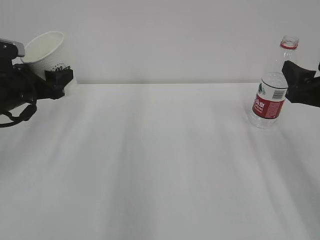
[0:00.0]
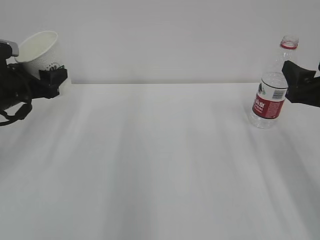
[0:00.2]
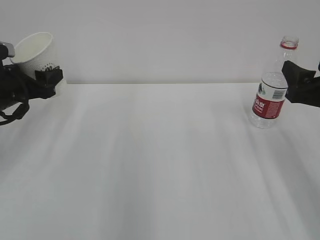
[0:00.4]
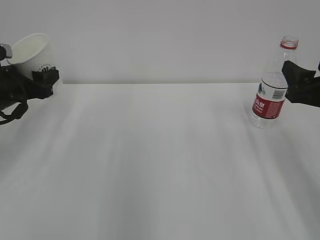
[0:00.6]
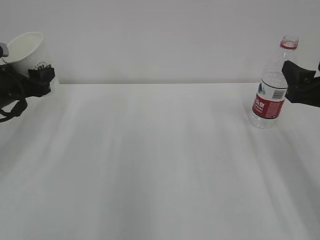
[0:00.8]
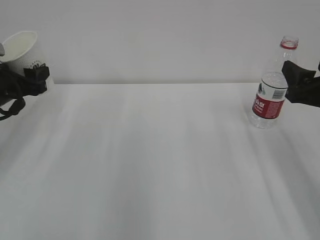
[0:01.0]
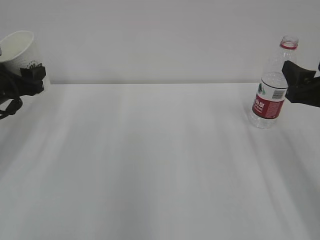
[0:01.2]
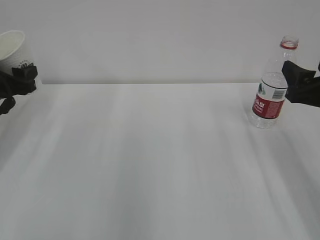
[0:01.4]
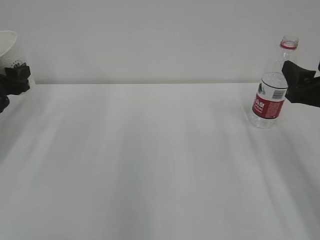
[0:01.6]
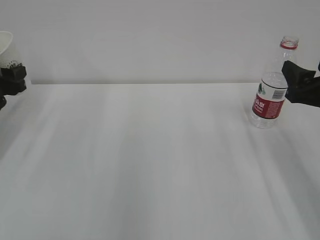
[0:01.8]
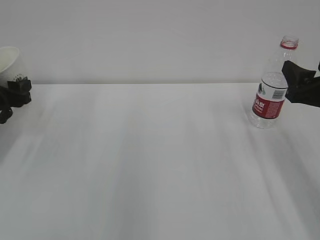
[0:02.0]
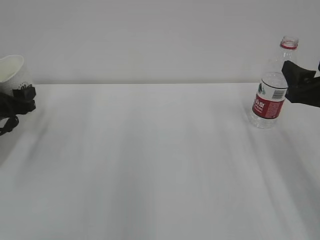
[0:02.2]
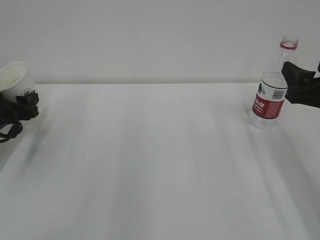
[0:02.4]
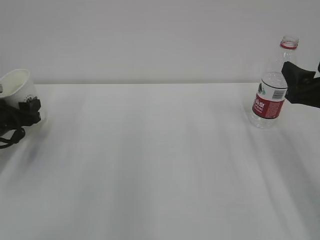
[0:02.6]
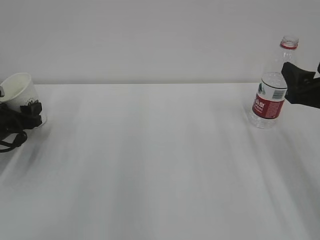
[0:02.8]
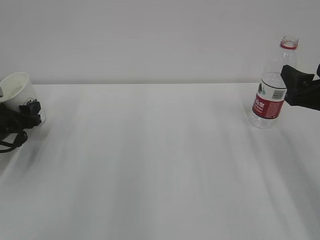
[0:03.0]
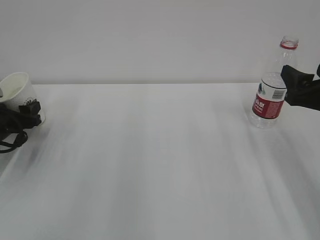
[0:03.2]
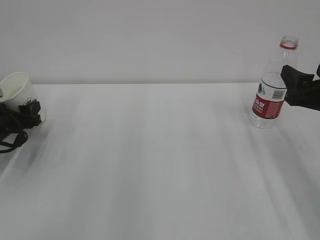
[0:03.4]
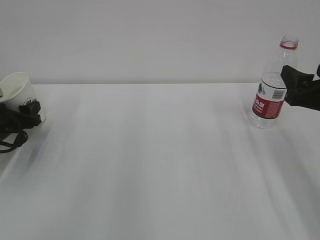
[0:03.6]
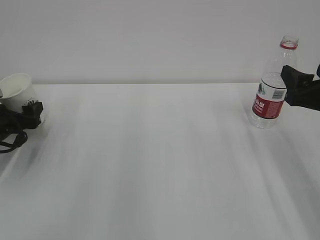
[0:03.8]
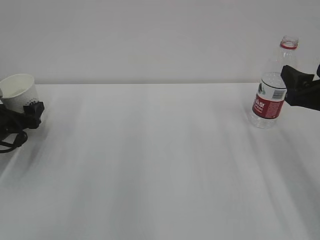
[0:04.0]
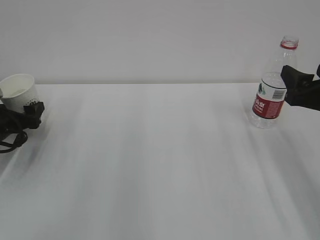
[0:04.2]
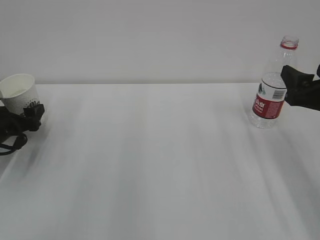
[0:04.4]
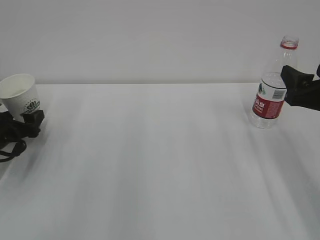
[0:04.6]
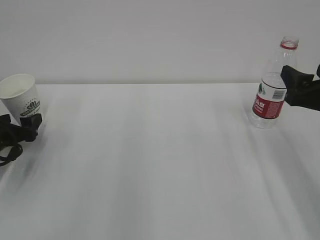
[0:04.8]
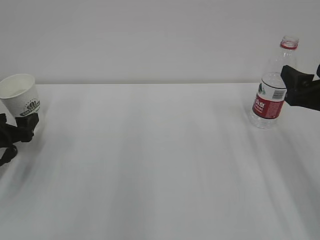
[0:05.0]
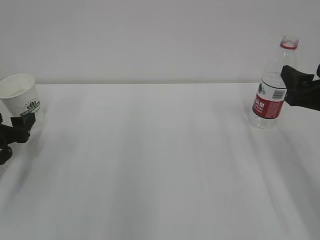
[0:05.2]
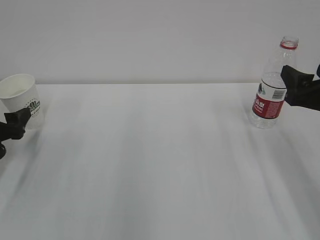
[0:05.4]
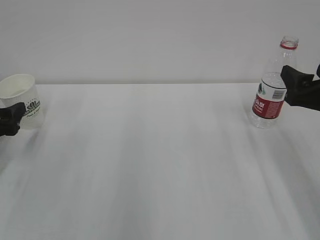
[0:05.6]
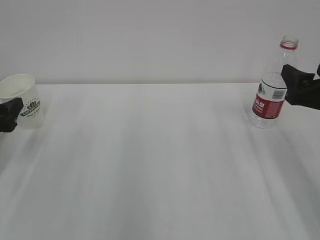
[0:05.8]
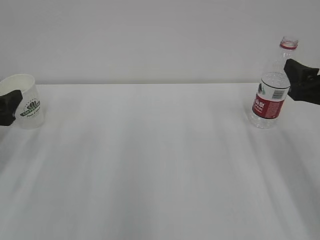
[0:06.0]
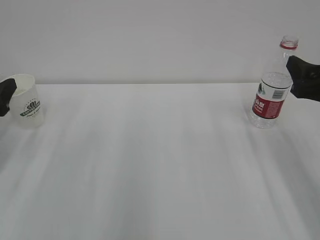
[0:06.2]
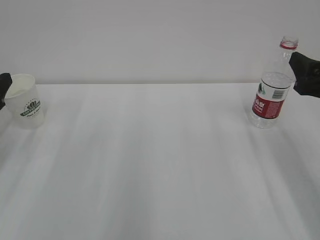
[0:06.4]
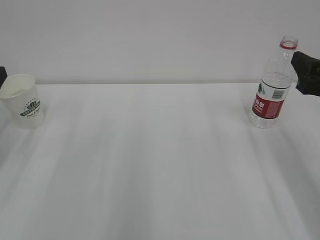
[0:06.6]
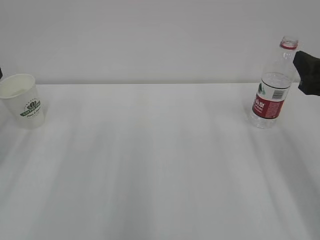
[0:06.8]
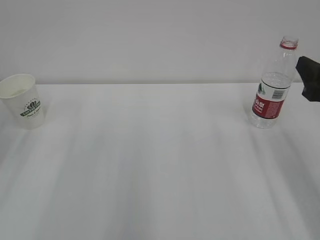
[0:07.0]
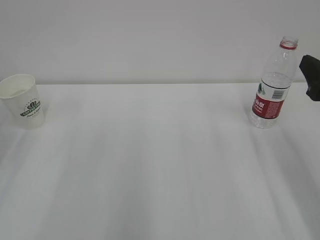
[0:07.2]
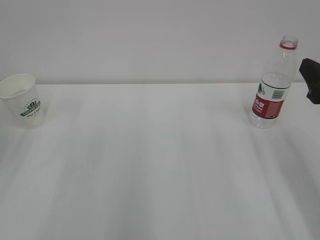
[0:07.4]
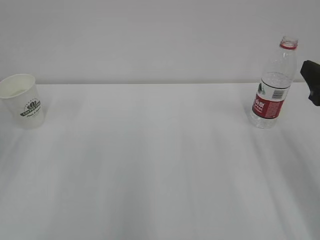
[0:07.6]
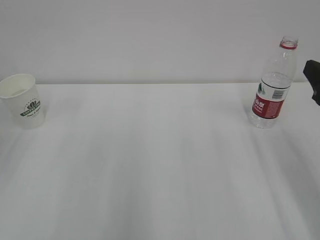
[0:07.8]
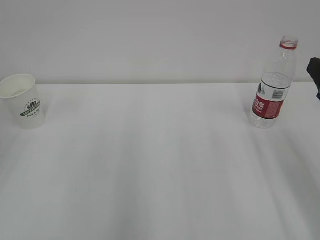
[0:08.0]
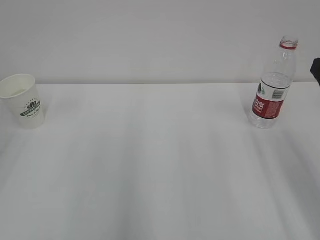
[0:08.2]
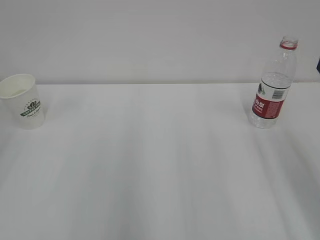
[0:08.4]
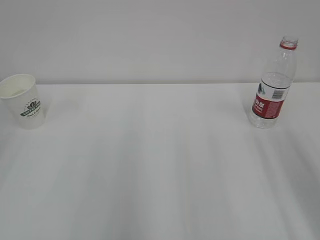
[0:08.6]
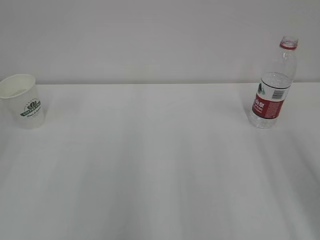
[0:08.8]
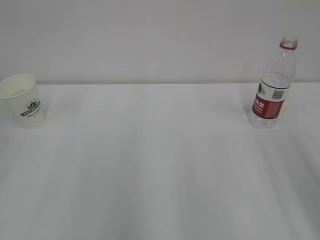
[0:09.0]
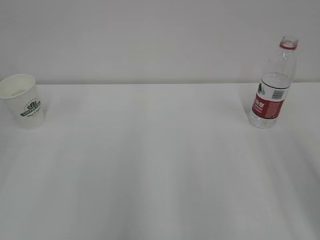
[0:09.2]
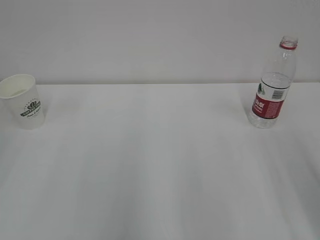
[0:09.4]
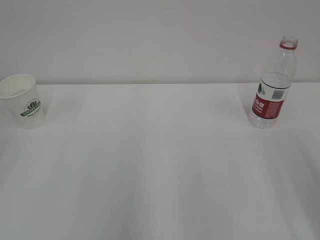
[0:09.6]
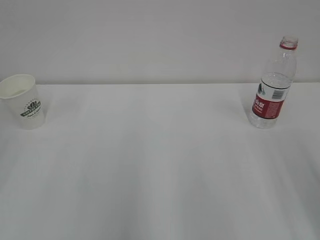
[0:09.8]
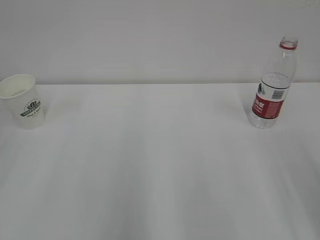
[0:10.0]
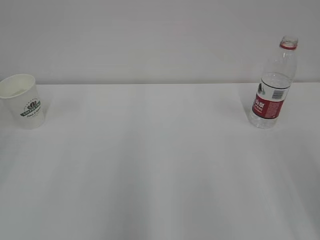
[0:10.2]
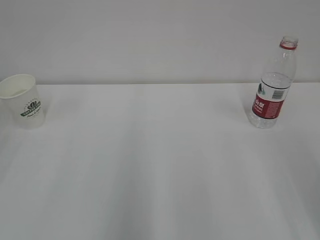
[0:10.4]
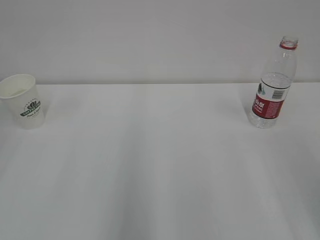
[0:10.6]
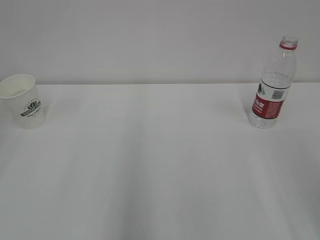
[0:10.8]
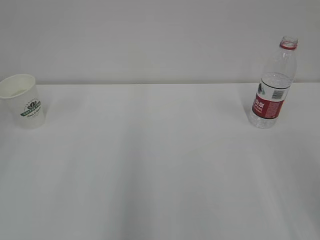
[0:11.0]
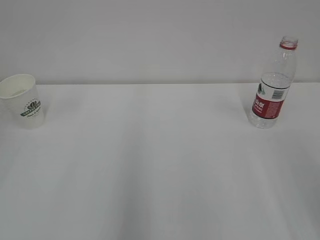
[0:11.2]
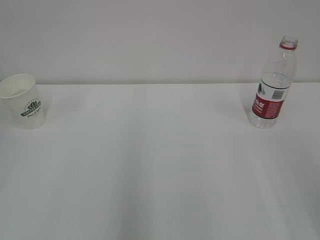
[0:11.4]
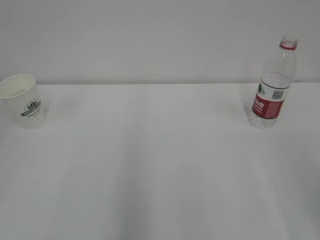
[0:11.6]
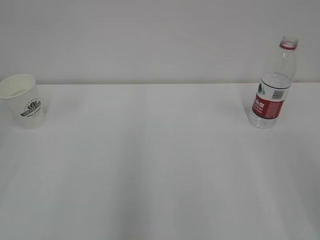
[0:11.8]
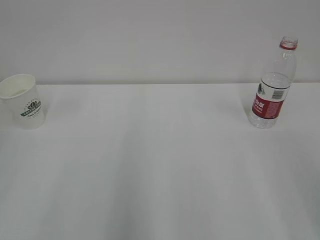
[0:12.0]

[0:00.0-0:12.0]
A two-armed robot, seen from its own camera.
0.0 to 1.6 s: The left gripper travels to the left by about 5 cm.
1.6 to 3.0 s: The left gripper moves downward, approximately 10 cm.
3.0 to 4.4 s: The left gripper opens.
4.4 to 6.0 s: The left gripper goes some 10 cm upward and backward.
6.0 to 7.6 s: The left gripper shifts about 10 cm upward and backward.
7.6 to 9.0 s: The right gripper goes approximately 5 cm backward.

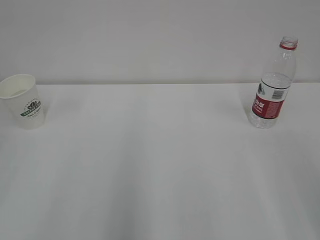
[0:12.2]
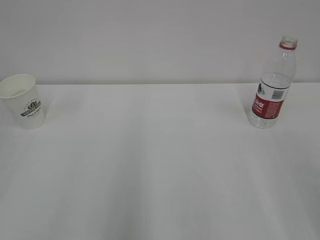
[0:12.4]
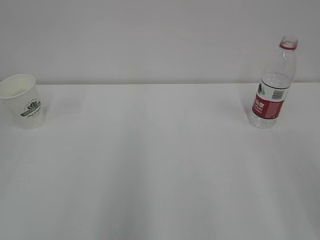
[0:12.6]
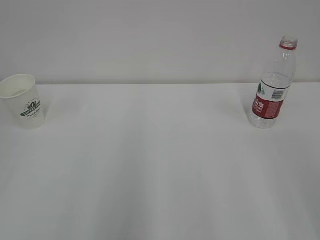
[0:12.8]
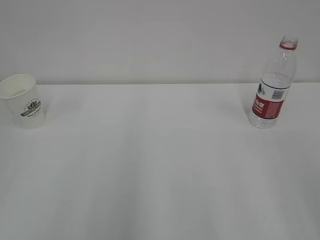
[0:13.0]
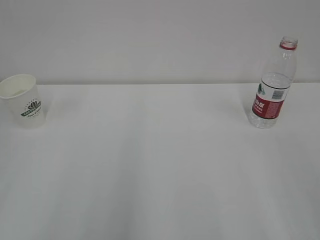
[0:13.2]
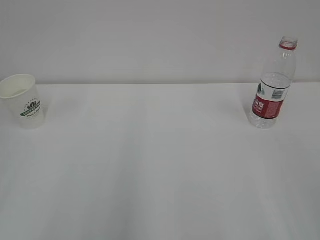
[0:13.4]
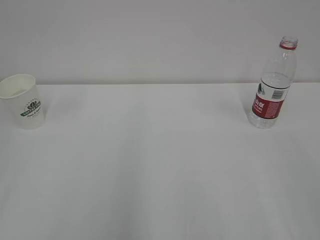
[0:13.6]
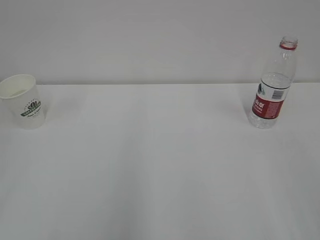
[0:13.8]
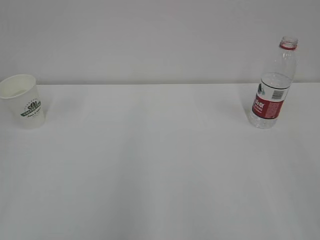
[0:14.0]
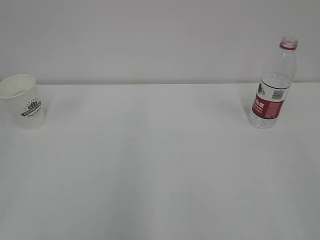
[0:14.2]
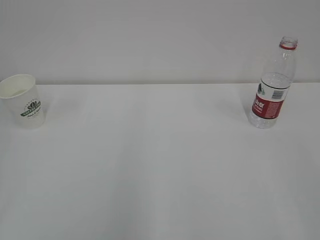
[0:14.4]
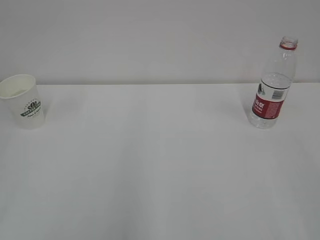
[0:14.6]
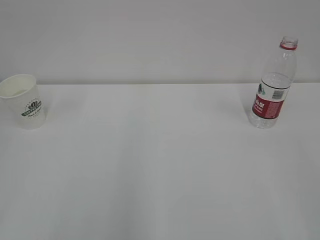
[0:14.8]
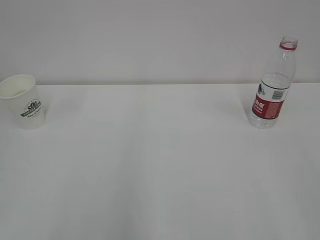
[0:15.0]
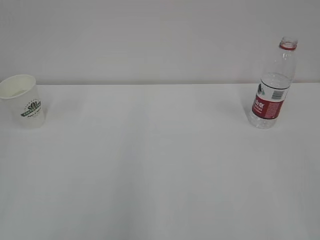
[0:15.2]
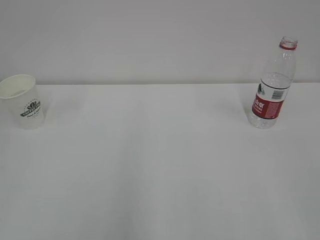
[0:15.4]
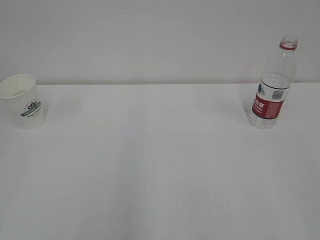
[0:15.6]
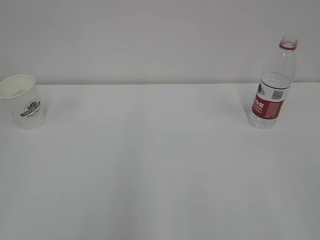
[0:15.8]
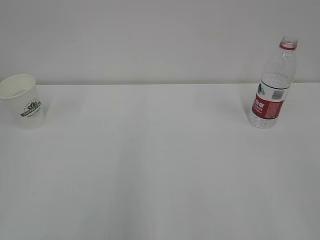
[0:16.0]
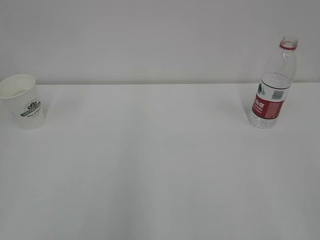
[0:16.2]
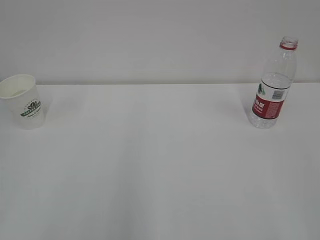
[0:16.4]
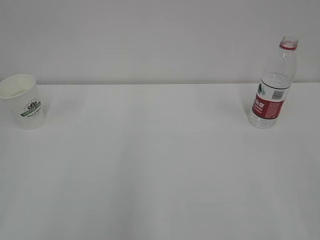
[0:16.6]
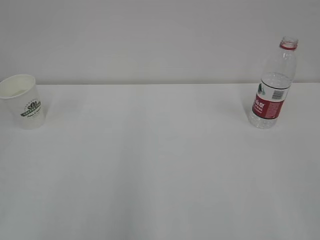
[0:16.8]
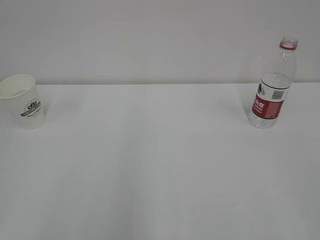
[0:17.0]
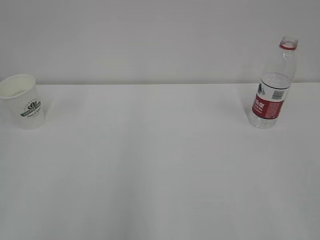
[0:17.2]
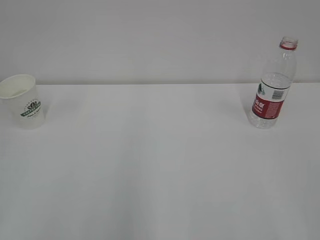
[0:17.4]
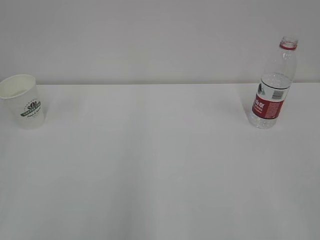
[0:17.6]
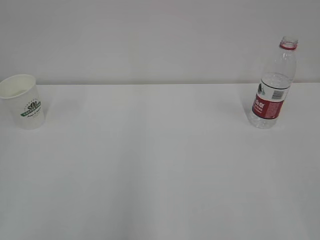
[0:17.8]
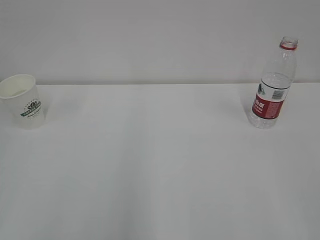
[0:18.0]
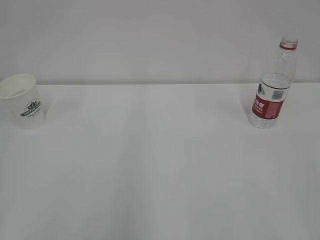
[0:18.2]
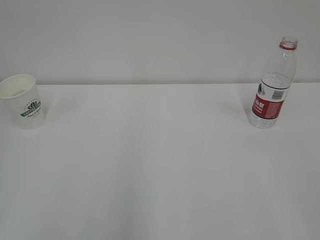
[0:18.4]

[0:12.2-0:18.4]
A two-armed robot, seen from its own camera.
16.8 to 18.4 s: Both grippers stay put.

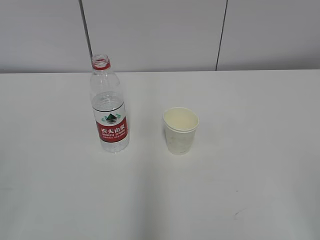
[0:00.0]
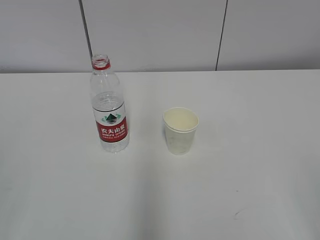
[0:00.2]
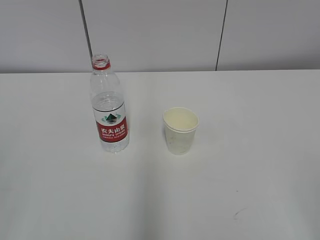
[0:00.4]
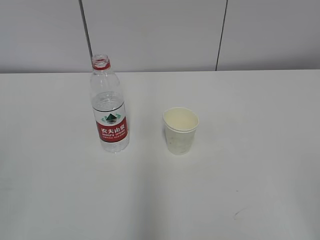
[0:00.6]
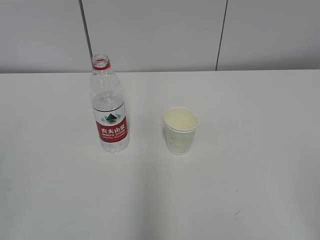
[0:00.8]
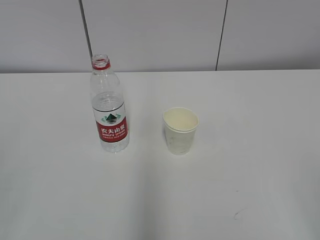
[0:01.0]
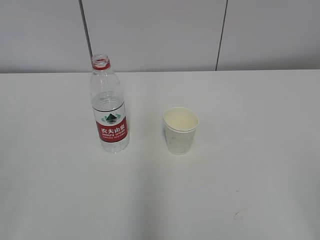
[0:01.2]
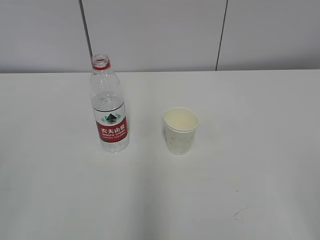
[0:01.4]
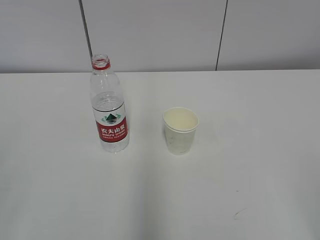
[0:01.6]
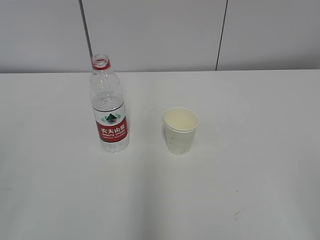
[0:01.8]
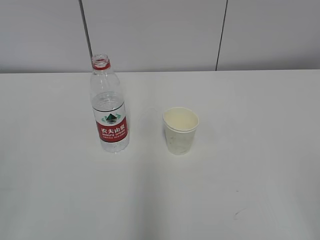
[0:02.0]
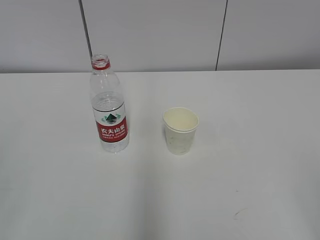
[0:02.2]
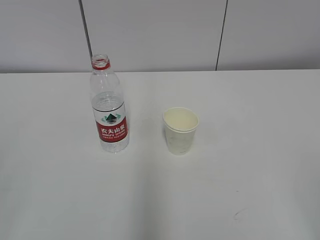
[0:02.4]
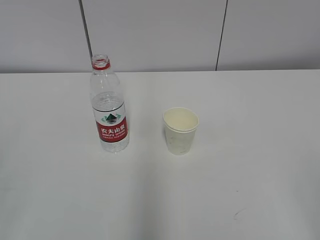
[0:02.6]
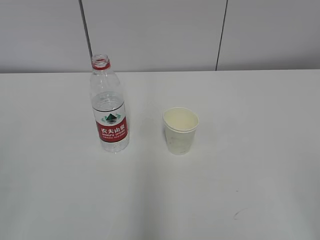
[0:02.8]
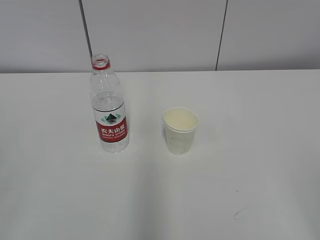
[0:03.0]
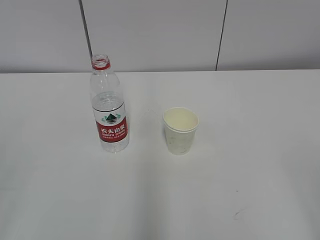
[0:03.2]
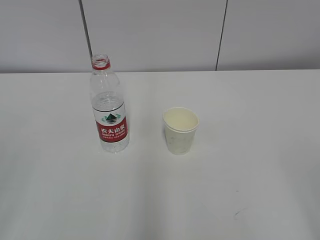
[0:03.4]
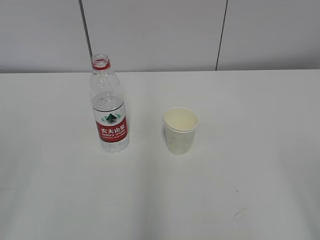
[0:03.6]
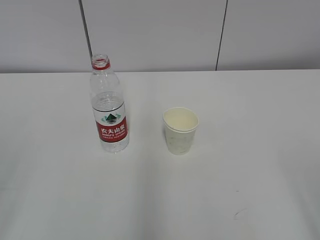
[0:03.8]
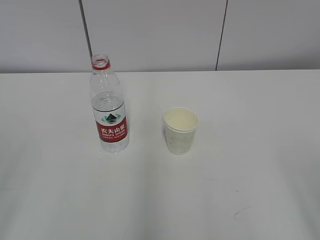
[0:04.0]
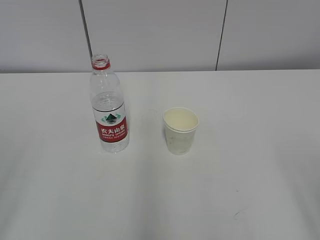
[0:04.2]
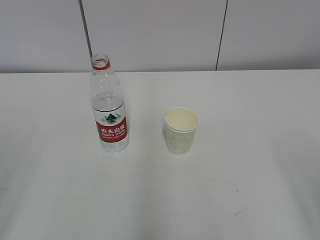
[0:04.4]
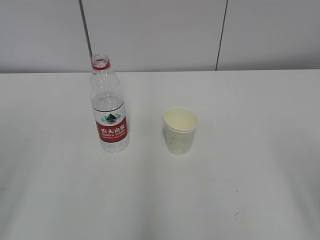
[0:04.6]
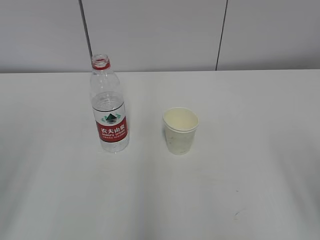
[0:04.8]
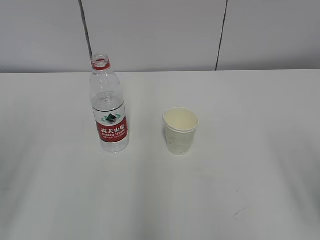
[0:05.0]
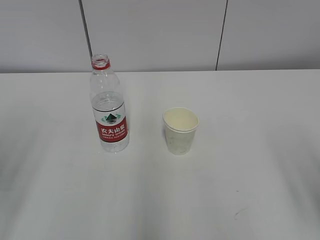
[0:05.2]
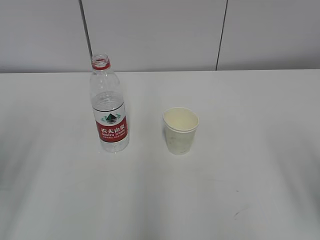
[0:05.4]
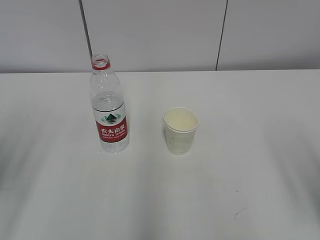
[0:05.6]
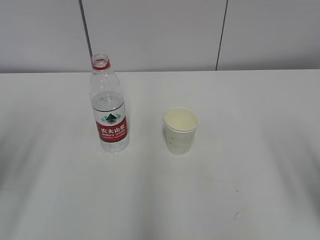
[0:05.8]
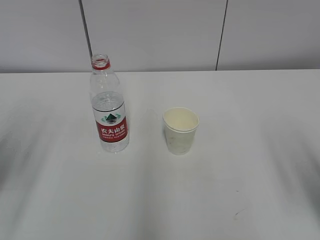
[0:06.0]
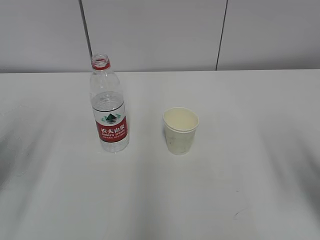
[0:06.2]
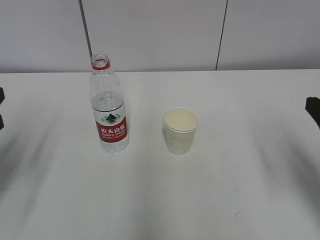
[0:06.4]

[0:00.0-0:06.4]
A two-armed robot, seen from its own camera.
4.8 to 6.4 s: The right gripper goes approximately 10 cm forward, while the left gripper is displaced forward and downward by roughly 15 cm.
